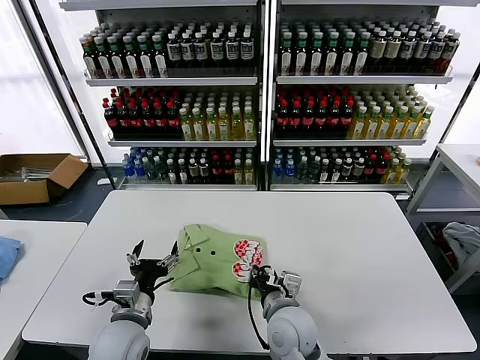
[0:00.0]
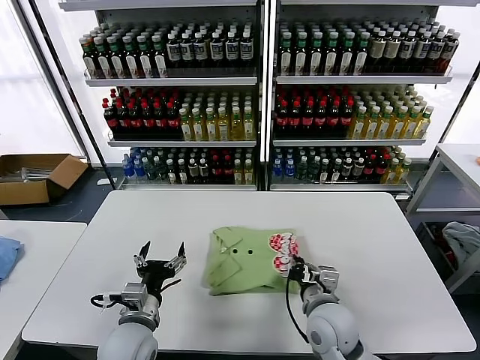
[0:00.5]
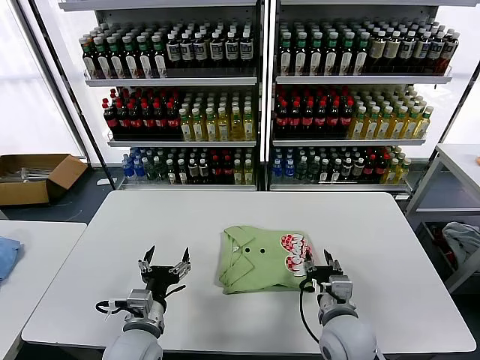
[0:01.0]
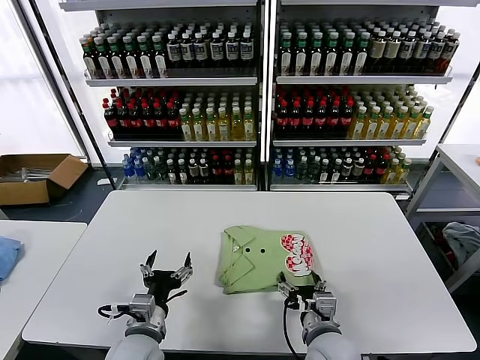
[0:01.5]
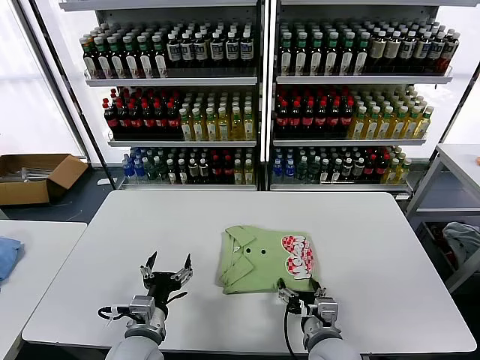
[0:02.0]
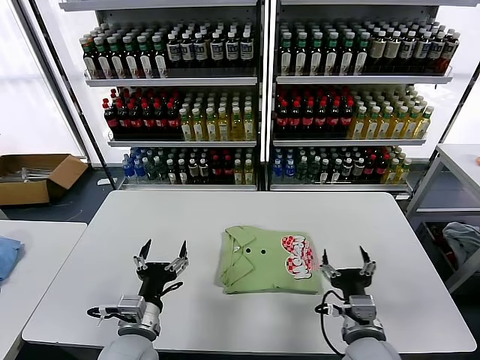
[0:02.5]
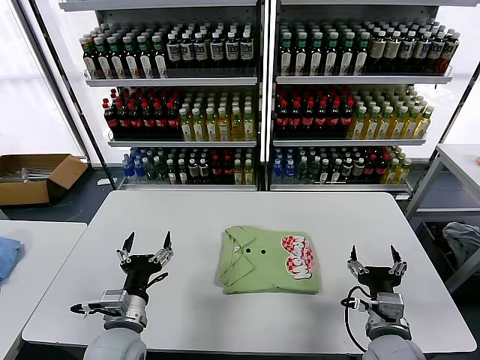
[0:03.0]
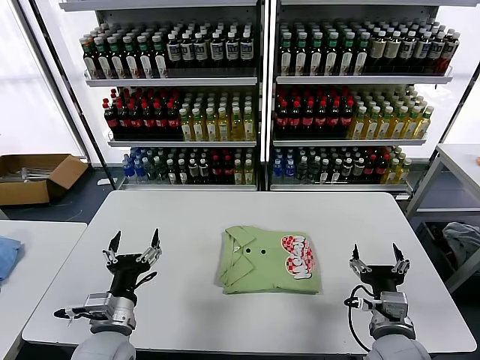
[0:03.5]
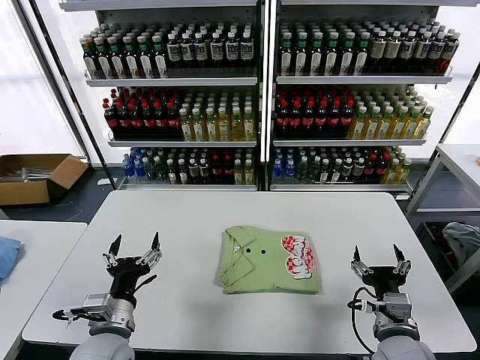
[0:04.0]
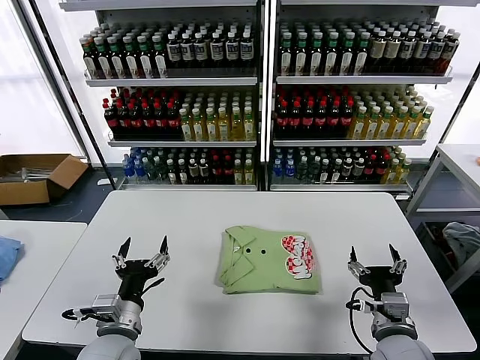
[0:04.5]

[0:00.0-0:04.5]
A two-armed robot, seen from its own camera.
Task of the whole recording: fold and organize the clothes.
Step, 0:00.0 to 0:02.0: Drag the clothes to the center of the table.
0:00.0 to 0:02.0: The right gripper moves to the right and backward, roughly 10 cm, and opens up.
0:02.0 to 0:04.5: The right gripper is displaced to the right by roughly 10 cm.

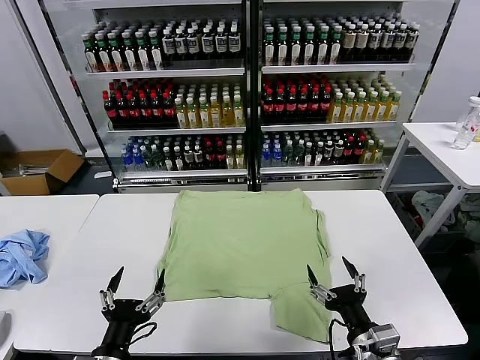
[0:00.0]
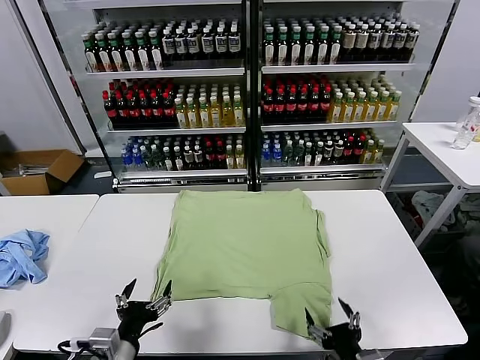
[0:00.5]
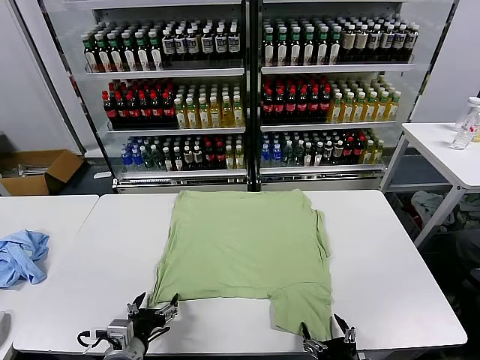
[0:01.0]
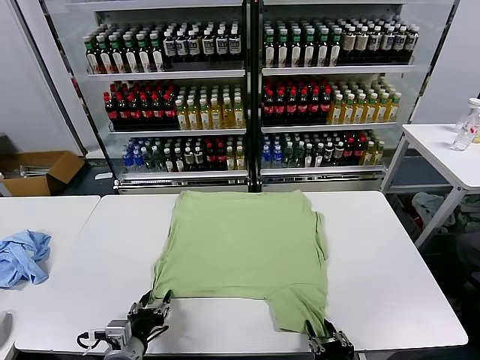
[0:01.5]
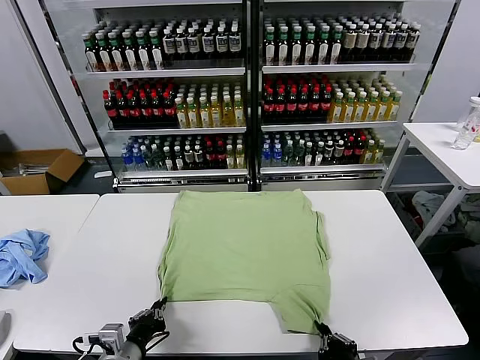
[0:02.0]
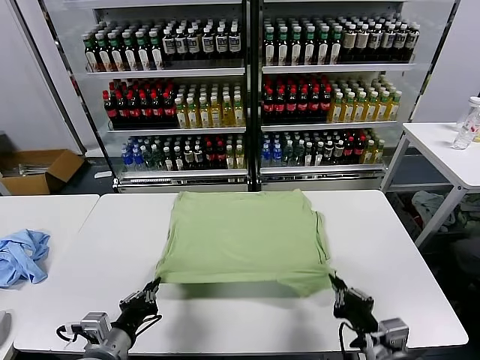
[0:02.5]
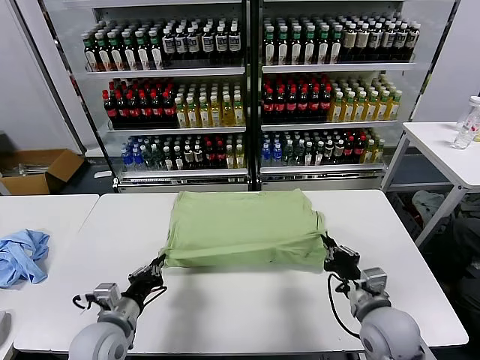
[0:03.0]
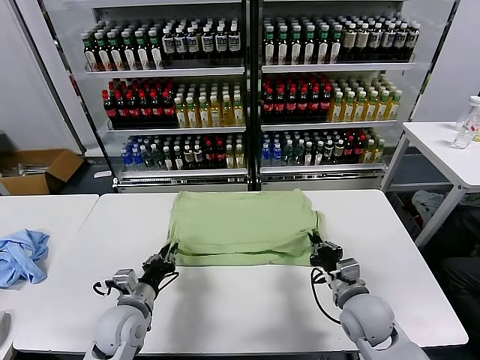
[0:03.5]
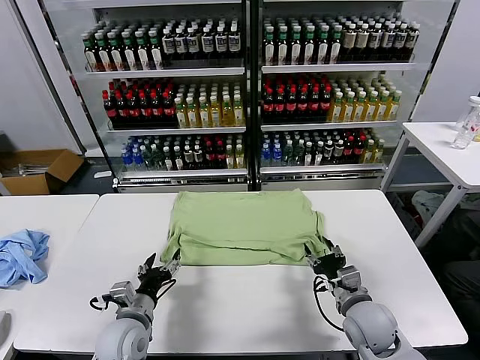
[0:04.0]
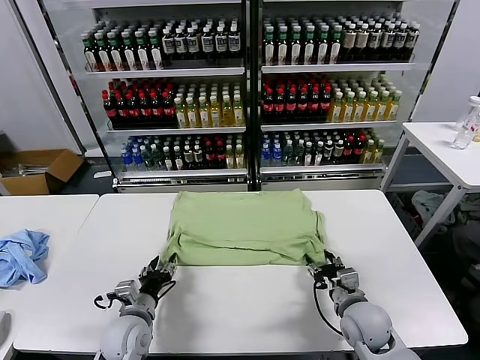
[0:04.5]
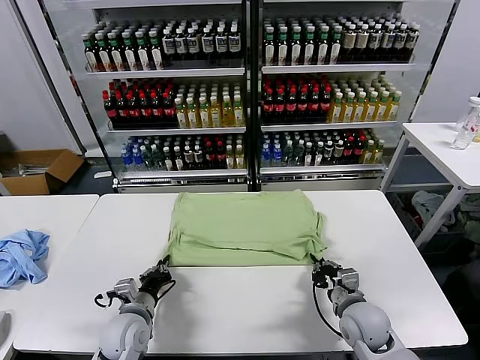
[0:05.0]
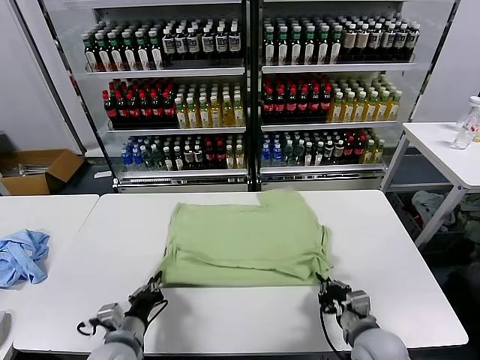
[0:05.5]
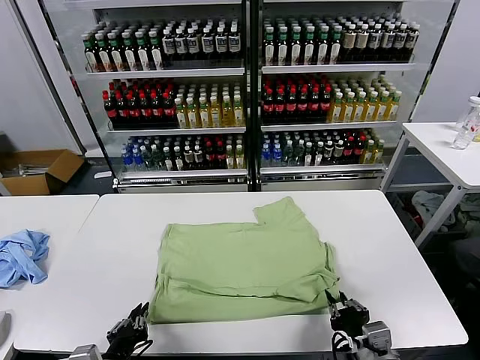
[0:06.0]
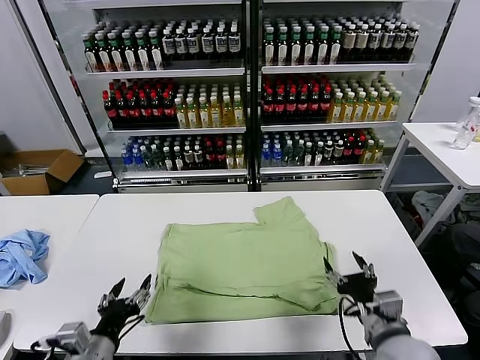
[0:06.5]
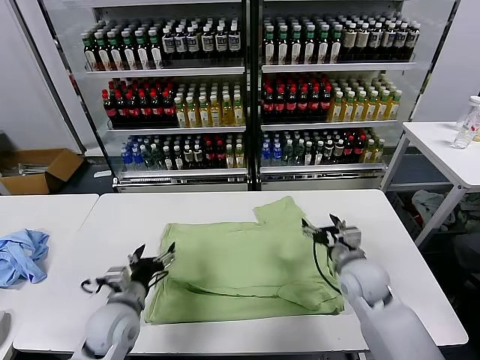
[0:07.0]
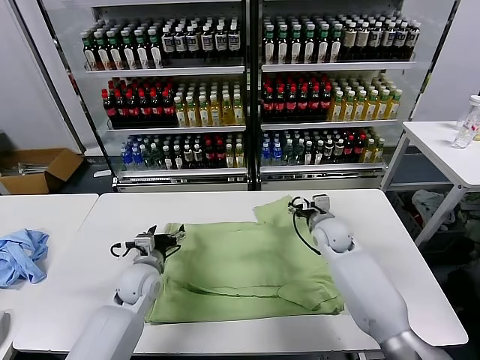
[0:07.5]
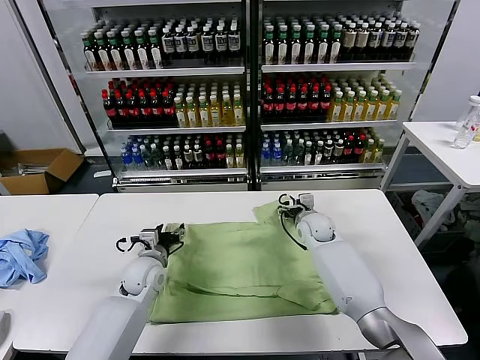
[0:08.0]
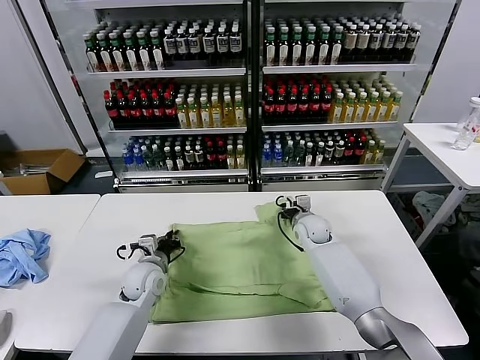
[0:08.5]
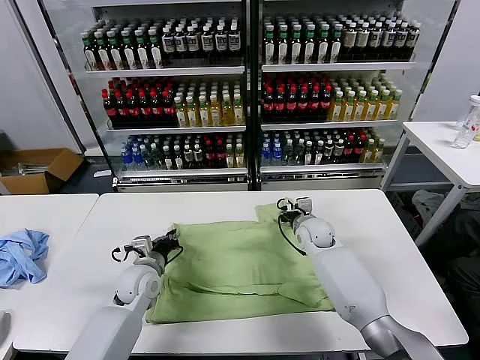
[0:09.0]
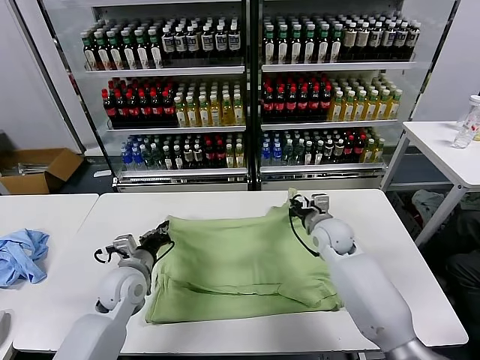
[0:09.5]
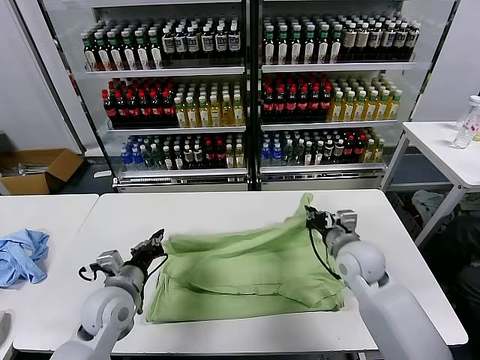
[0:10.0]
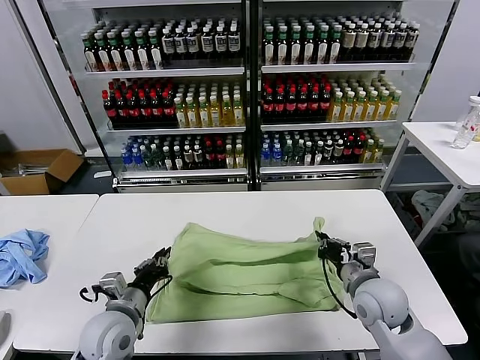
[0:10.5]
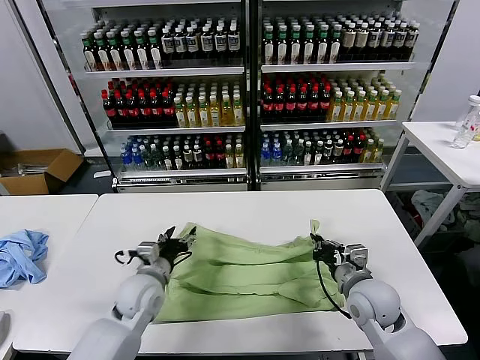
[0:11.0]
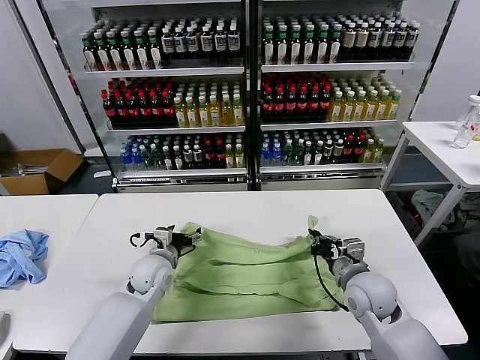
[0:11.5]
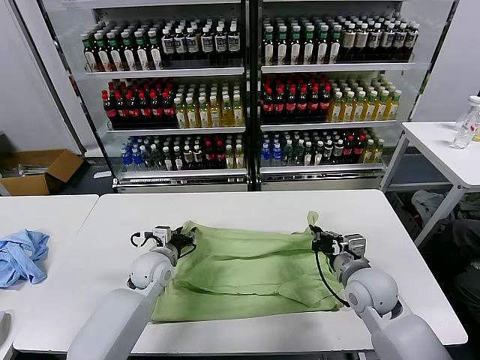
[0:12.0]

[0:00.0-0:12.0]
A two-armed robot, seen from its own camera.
Task of the whole recording: fold and organize the clothes.
Step, 0:00.0 to 0:02.0: use both grippers simultaneously to clamp the lower edge of the clothing fabric.
Step, 0:02.5 to 0:03.5: use both grippers to drag the lower edge of the fabric forward and fold it over the upper edge.
Step, 0:04.0 to 0:06.0: Drag the clothes downward with both gripper.
Step, 0:06.5 to 0:08.5: use both grippers simultaneously to clamp the upper edge of the clothing fabric.
0:02.0 to 0:04.0: The left gripper travels forward by some 10 cm, and opens. Meanwhile the right gripper travels forward by roughly 15 cm, and opens its fingers.
0:04.0 to 0:06.0: Both grippers move backward, about 15 cm. The left gripper closes up. Meanwhile the right gripper closes.
0:06.0 to 0:08.0: The grippers both shift forward by about 35 cm. The left gripper opens up.
0:08.0 to 0:10.0: The left gripper heads backward and upward, covering approximately 10 cm, and closes up. Meanwhile the right gripper moves backward and upward, approximately 20 cm, and closes.
0:10.0 to 0:12.0: The left gripper moves forward, approximately 10 cm, and opens up.

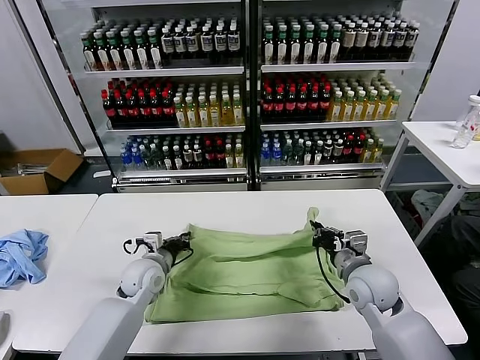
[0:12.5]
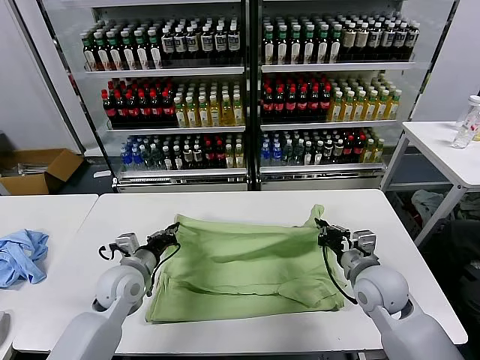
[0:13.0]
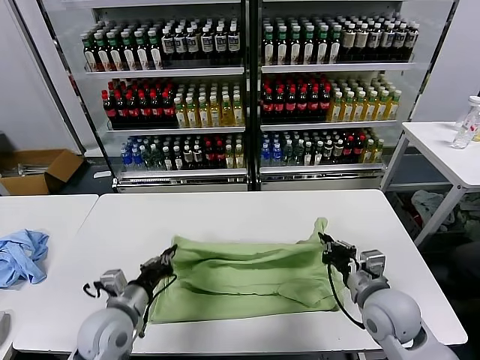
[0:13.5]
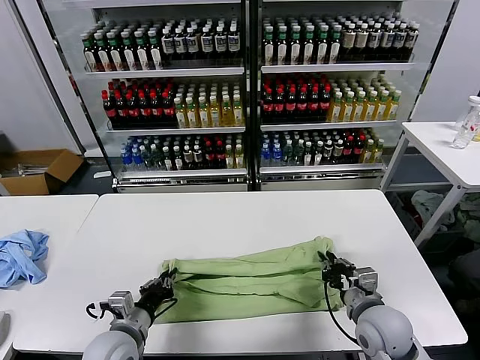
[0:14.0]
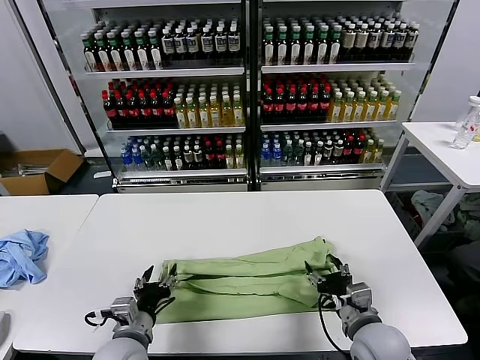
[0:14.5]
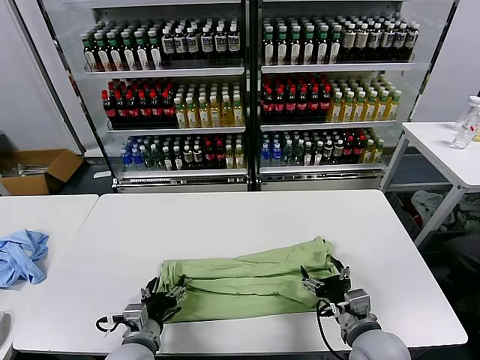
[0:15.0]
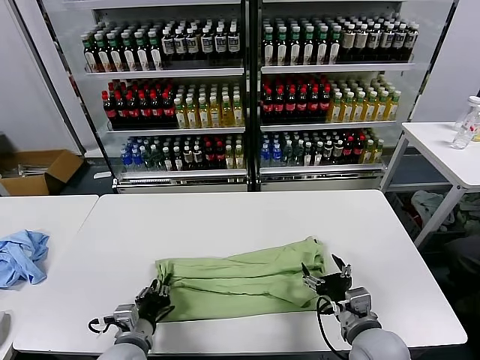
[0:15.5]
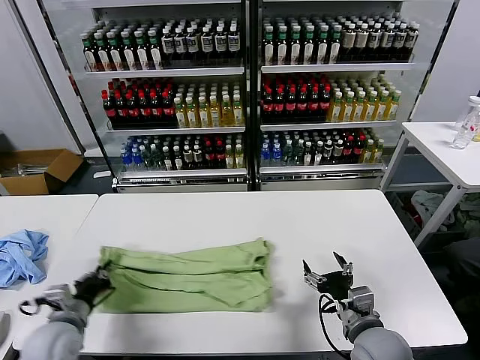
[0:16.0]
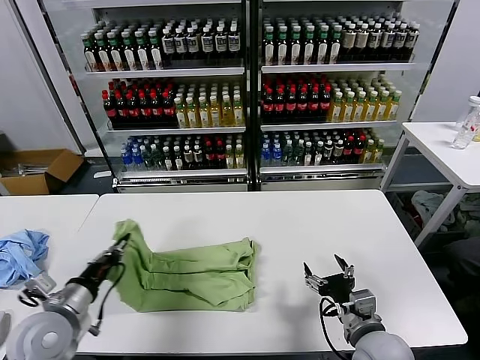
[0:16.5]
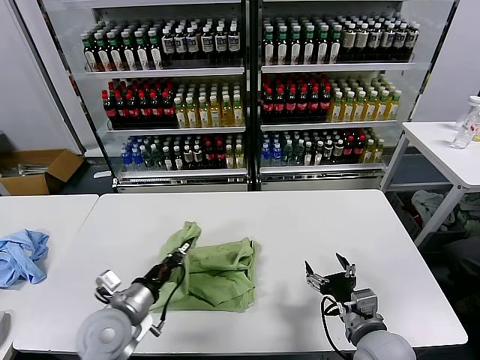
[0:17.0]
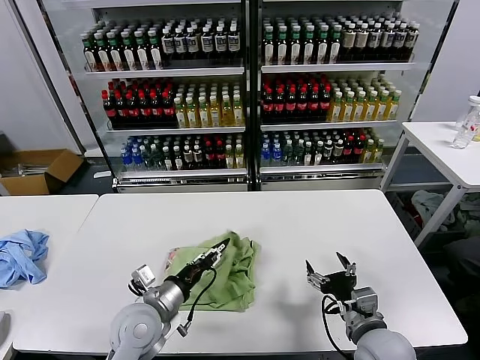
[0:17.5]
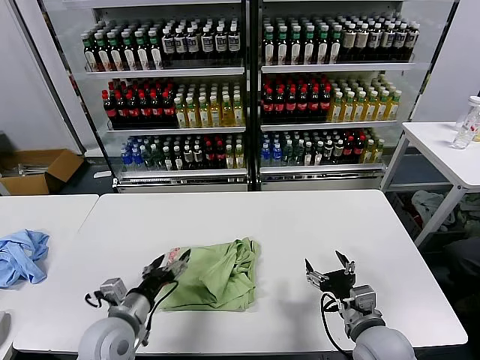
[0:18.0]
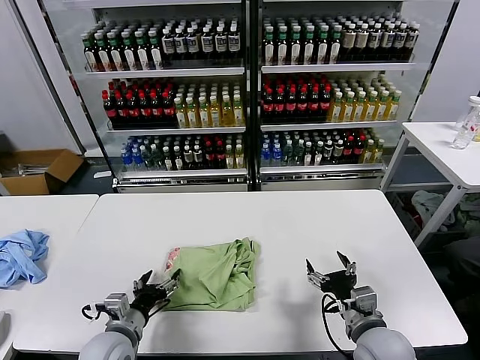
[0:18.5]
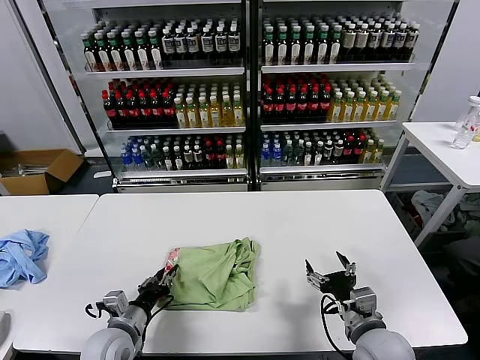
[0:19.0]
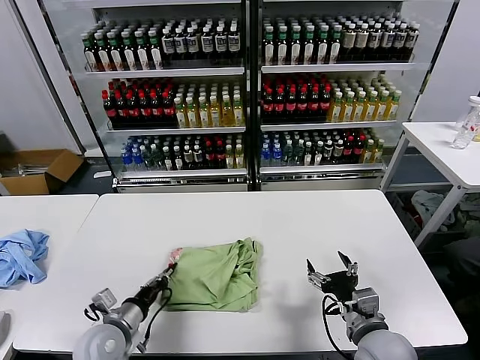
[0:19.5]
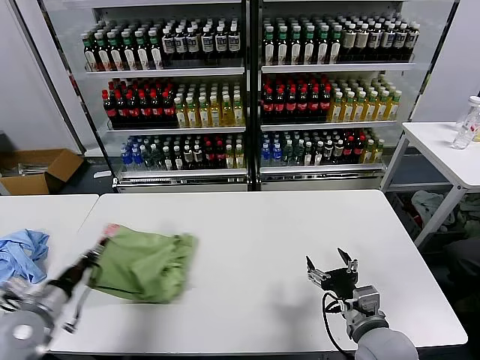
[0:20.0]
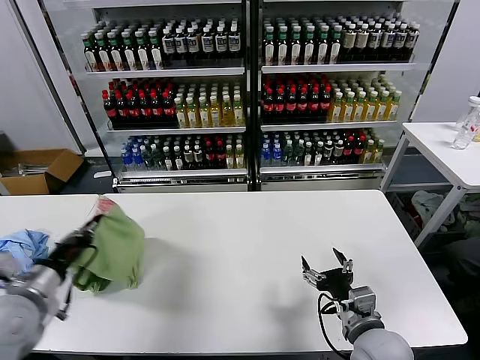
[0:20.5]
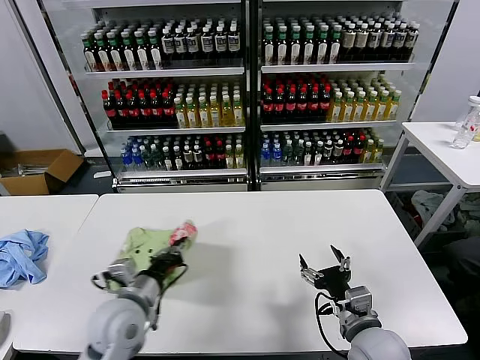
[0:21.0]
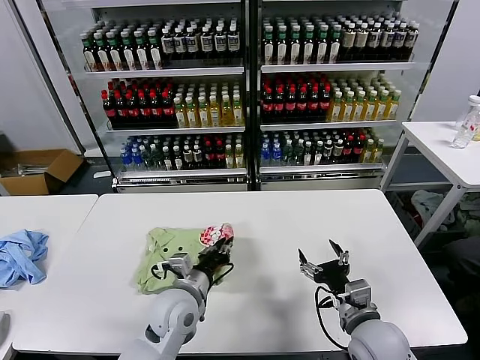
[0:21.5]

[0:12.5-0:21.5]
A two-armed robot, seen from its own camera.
Task of the whole recording: fold and organize the clothes.
Step, 0:14.5 to 0:15.5: use the left gripper to clamp the left edge of the fabric.
Step, 0:16.0 to 0:17.5: use the left gripper to drag the left edge of the fabric to the left and folds it over the right edge.
0:12.5 to 0:14.5: The right gripper moves backward, about 10 cm, and opens up, while the left gripper travels backward by about 20 cm, and opens.
0:14.5 to 0:17.0: The left gripper heads upward, covering approximately 5 cm, travels to the left and back again, roughly 15 cm each way, and closes up.
0:17.0 to 0:19.5: The left gripper goes roughly 10 cm downward, travels to the right and back again, about 5 cm each way, and opens, then closes once more.
0:19.5 to 0:21.5: The left gripper is displaced to the right and upward by roughly 15 cm.
